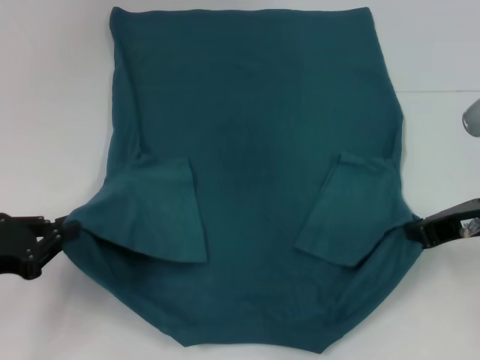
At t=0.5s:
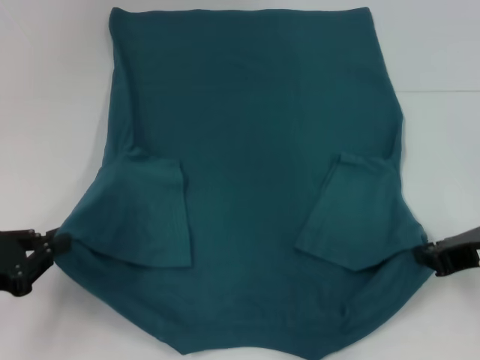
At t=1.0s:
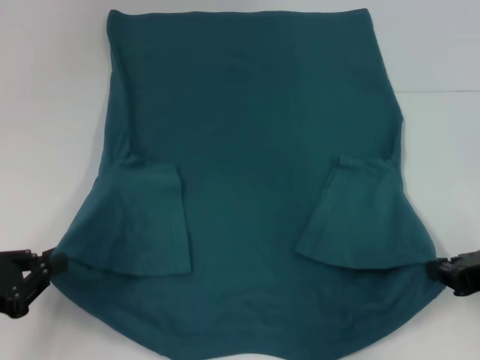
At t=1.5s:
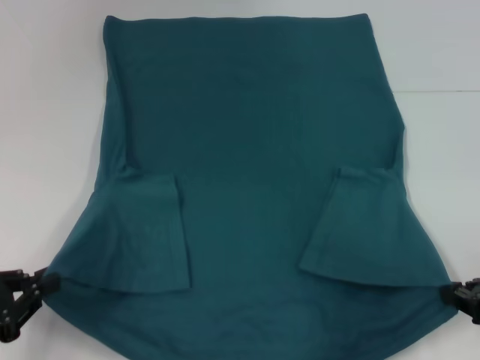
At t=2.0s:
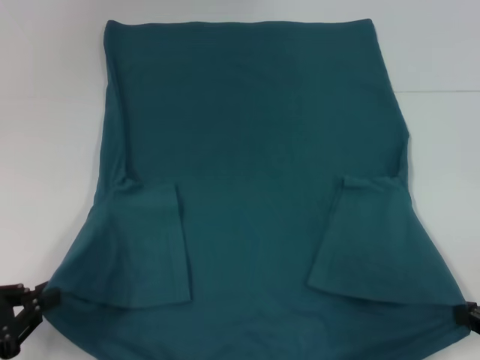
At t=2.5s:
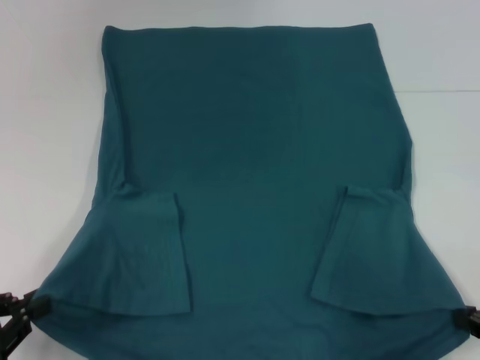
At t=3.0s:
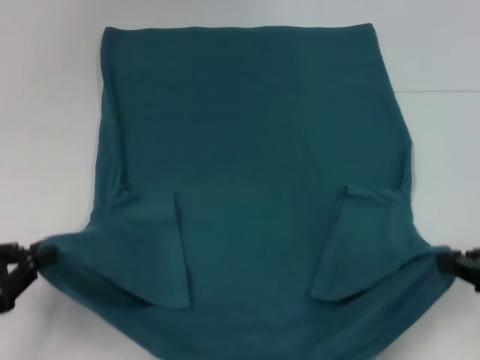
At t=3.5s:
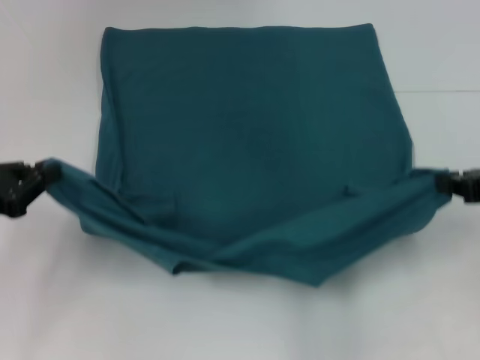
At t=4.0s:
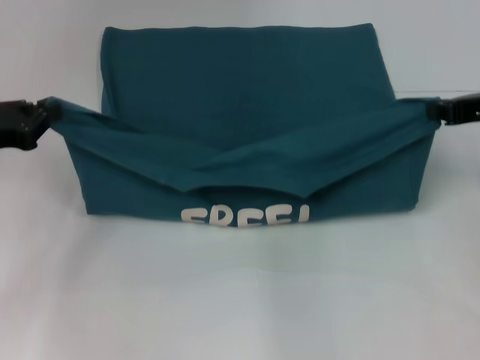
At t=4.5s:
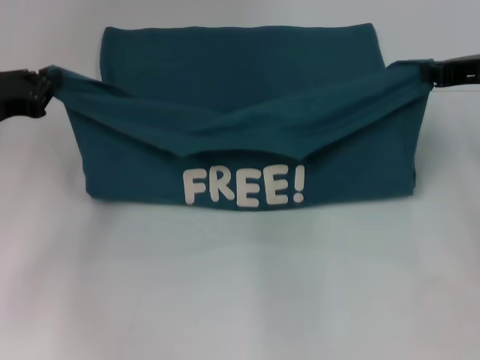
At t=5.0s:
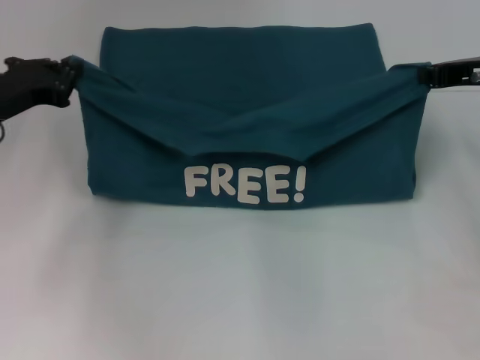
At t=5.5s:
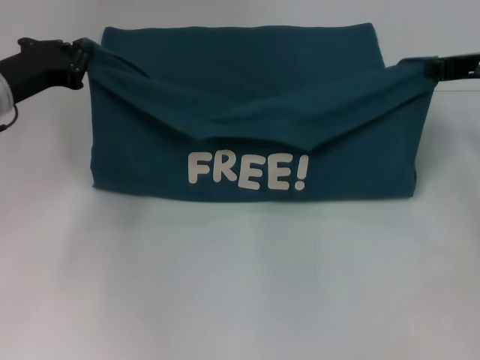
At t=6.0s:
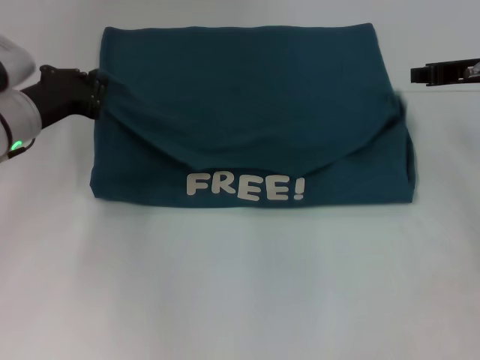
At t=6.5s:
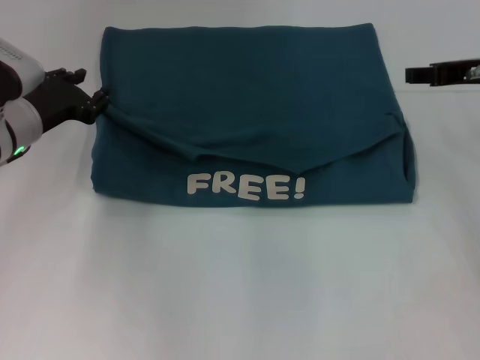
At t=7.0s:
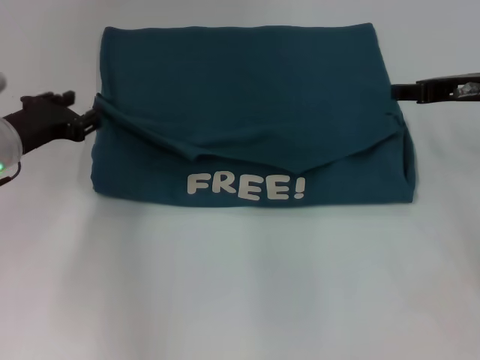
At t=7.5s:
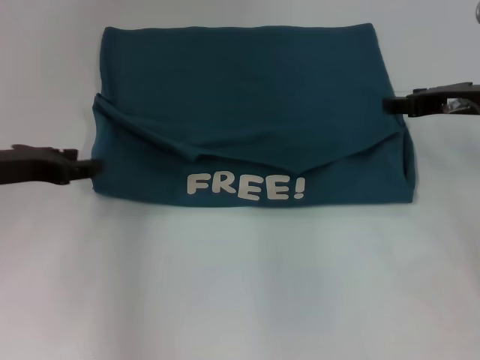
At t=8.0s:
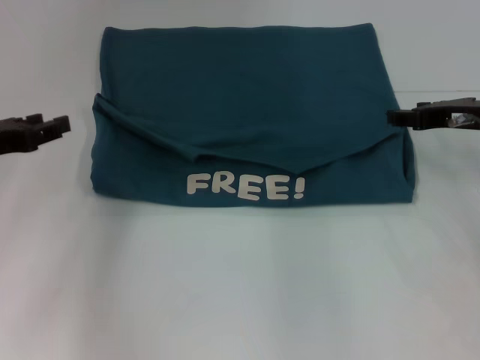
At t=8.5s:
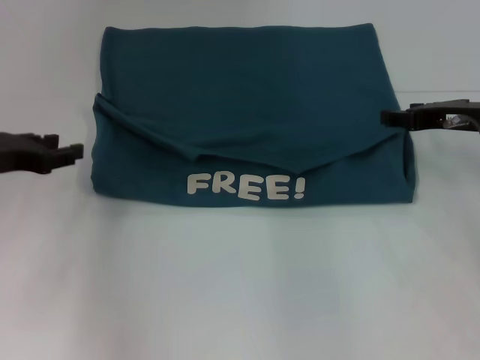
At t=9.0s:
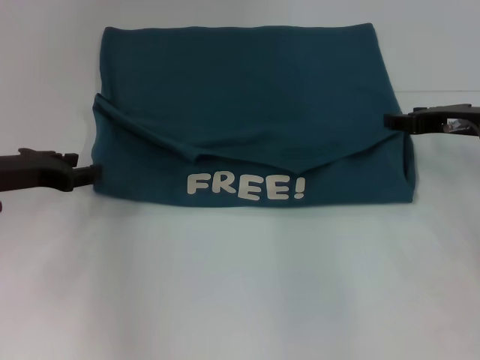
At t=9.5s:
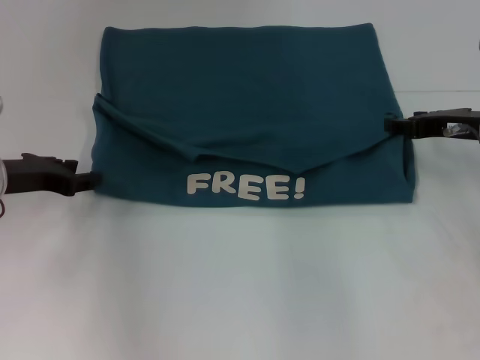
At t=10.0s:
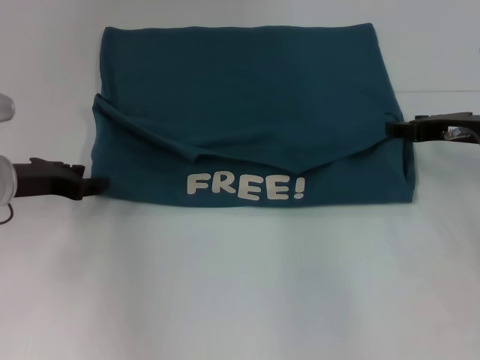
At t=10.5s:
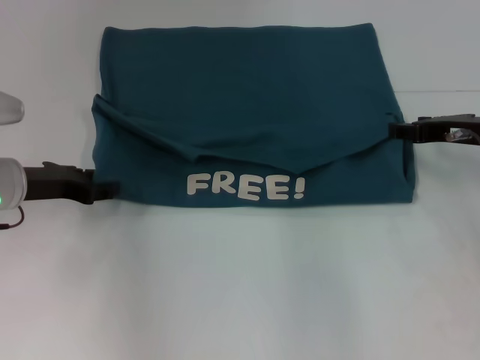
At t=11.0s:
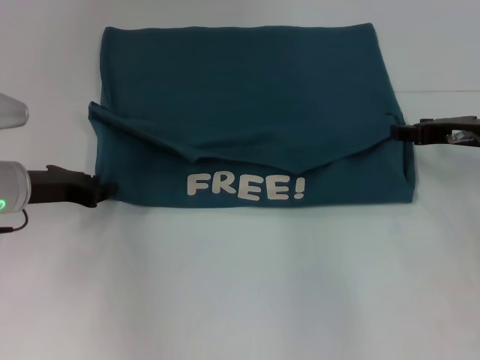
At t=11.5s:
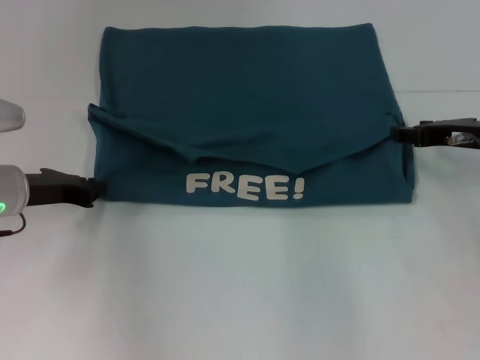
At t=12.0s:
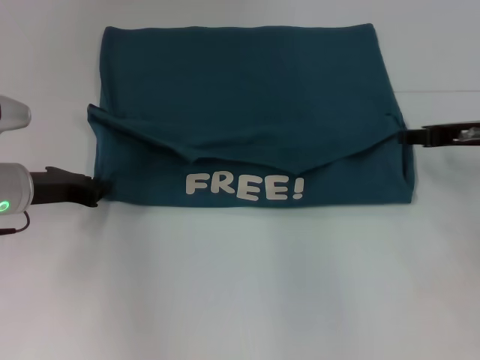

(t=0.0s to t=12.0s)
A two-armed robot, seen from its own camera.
Step, t=0.0s - t=6.5s: Fold the clothes to the left.
Step, t=0.0s - t=6.5s: Fold the clothes to the right.
t=0.0s - t=2.0s: The left gripper moves backward, roughly 5 cm. The right gripper shifts about 10 cm backward and to the right.
t=2.0s - t=4.0s: The two grippers go some 15 cm forward and upward.
t=4.0s - t=6.0s: The right gripper travels forward by some 5 cm; the left gripper moves forward and to the right, about 10 cm.
t=6.0s - t=8.0s: The left gripper goes about 10 cm backward and to the left, and opens; the right gripper ends up roughly 5 cm from where it was, and opens up.
t=8.0s - t=10.0s: The left gripper goes some 5 cm downward.
t=10.0s - t=12.0s: The left gripper closes up.

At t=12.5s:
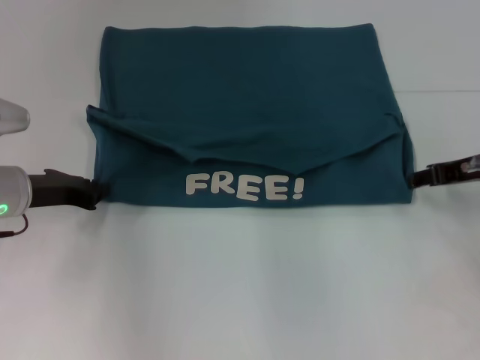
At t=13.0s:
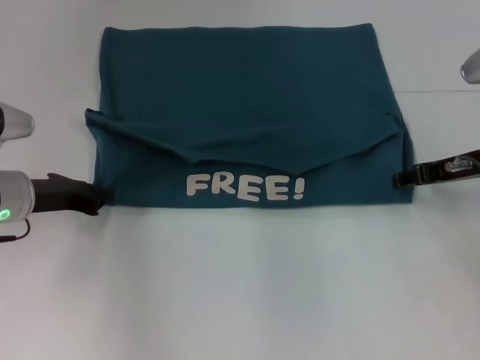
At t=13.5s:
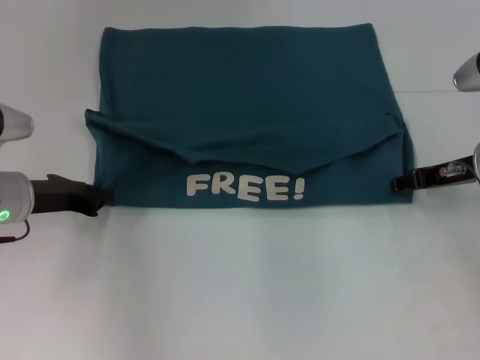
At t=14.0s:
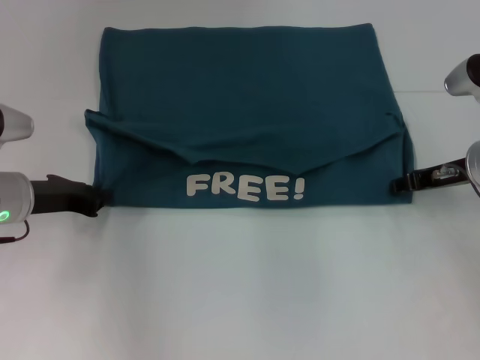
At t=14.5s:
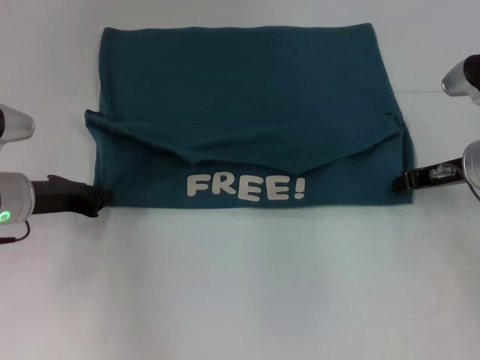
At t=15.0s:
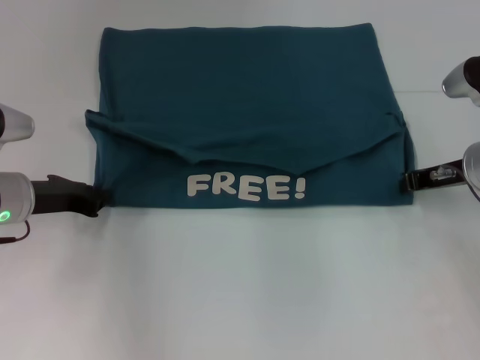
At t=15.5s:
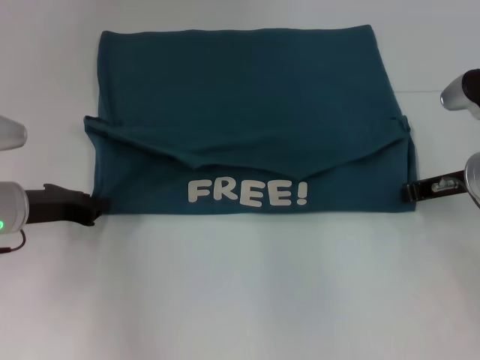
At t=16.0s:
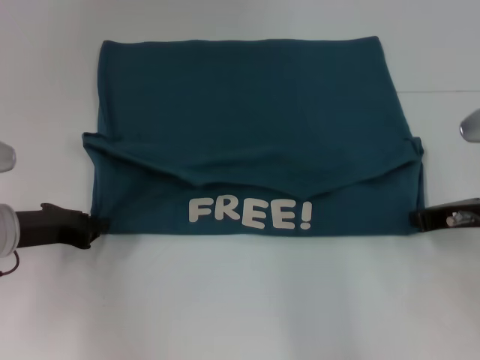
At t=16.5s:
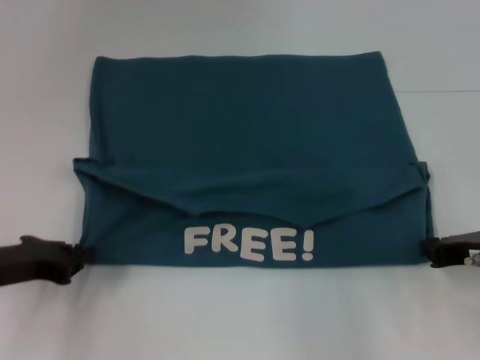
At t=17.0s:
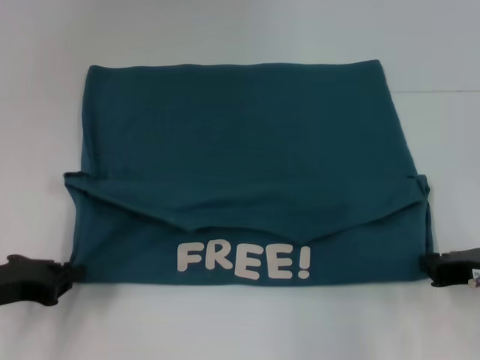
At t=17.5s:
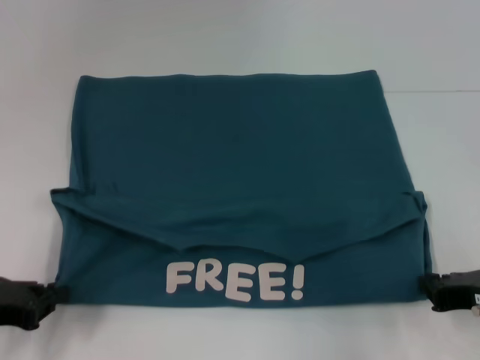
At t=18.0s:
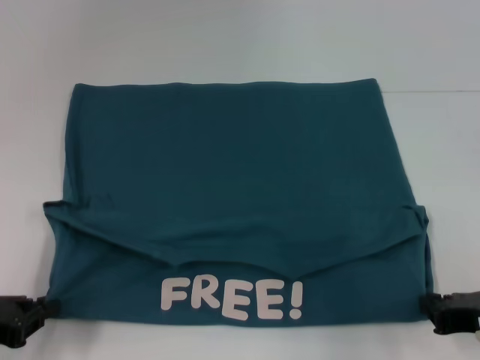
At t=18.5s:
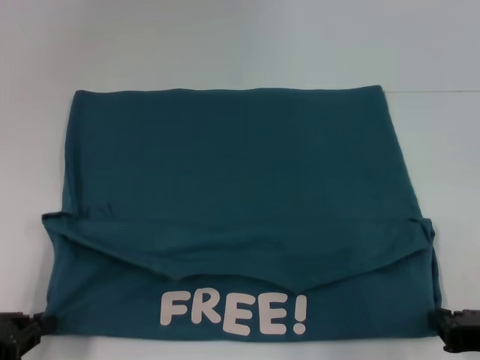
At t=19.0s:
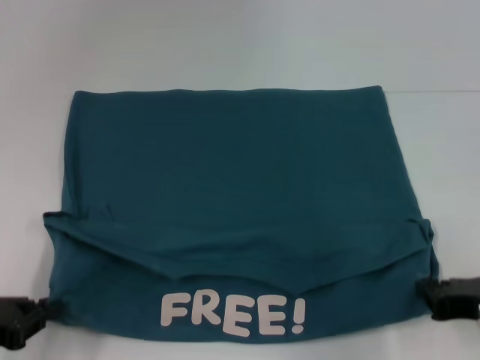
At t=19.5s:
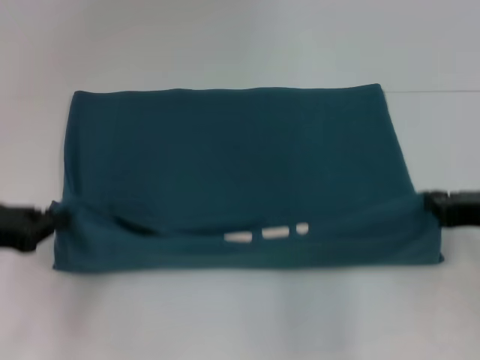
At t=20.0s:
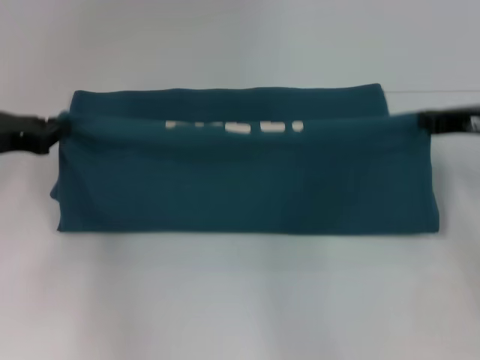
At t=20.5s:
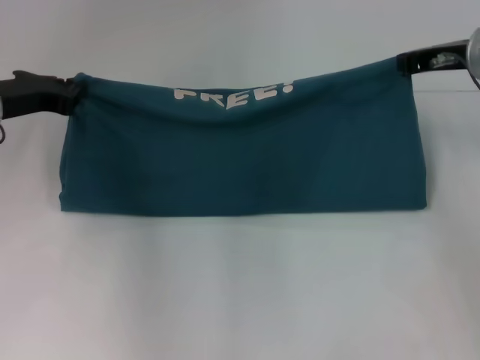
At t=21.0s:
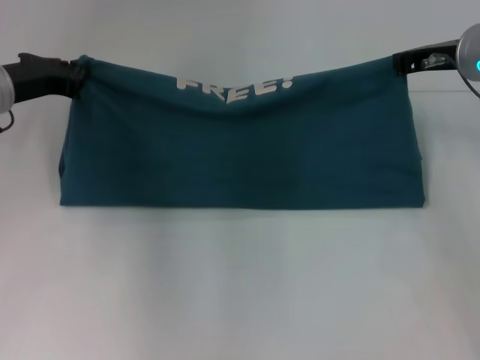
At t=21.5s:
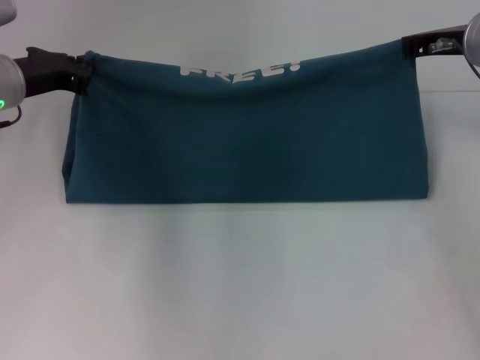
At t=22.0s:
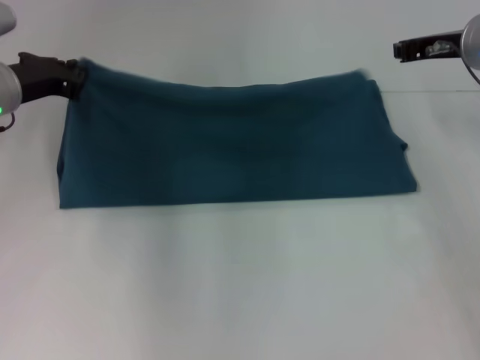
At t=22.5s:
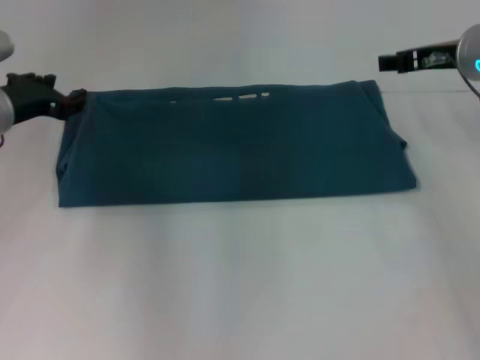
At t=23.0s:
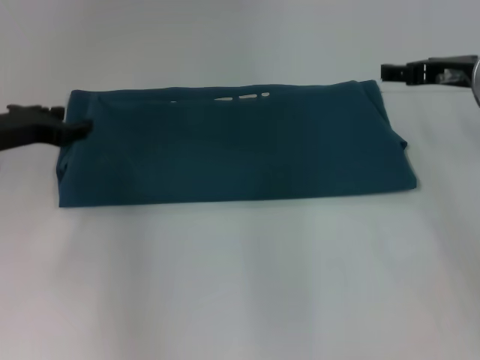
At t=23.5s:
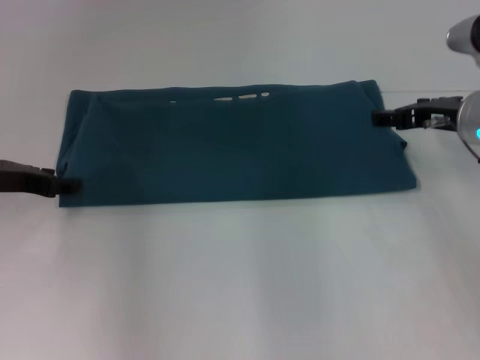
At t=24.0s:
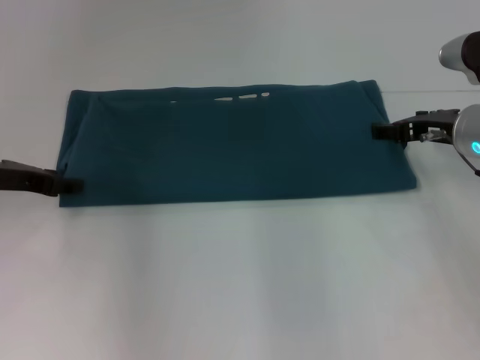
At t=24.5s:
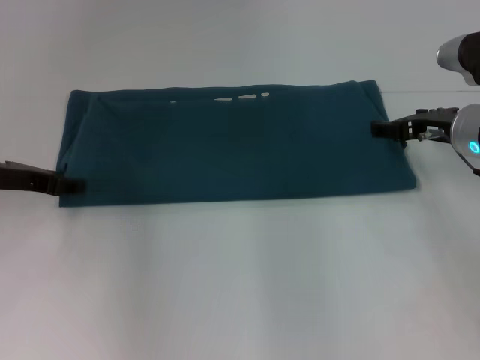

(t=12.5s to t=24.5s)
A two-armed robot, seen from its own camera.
Step, t=12.5s - t=18.5s: Pull the clothes with your left hand.
Step, t=12.5s - t=18.5s: Pull the clothes with your right hand.
Step, t=19.0s - t=22.0s: Fold the clothes to the left.
Step, t=19.0s - t=22.0s: Fold the clothes to the right.
t=12.5s - t=14.5s: The grippers move only a little.
t=14.5s - t=16.5s: Both grippers move backward, roughly 10 cm. The right gripper closes up.
t=16.5s - t=18.5s: The grippers both shift backward by approximately 10 cm.
t=18.5s - t=20.5s: The right gripper moves forward, roughly 25 cm. The left gripper goes approximately 25 cm forward and upward.
t=20.5s - t=22.5s: The left gripper opens up, while the right gripper opens its fingers.
t=22.5s - t=24.5s: The right gripper is displaced downward by roughly 5 cm, and opens.

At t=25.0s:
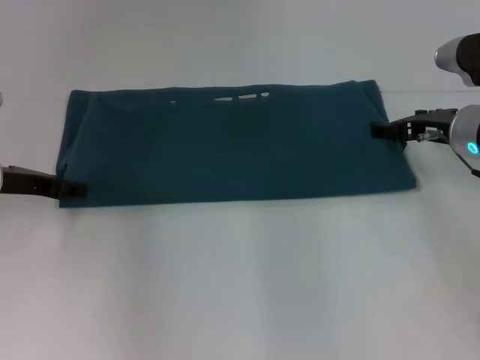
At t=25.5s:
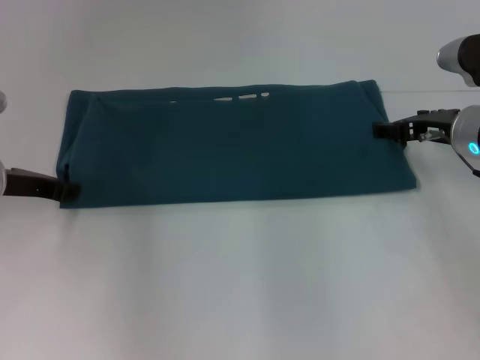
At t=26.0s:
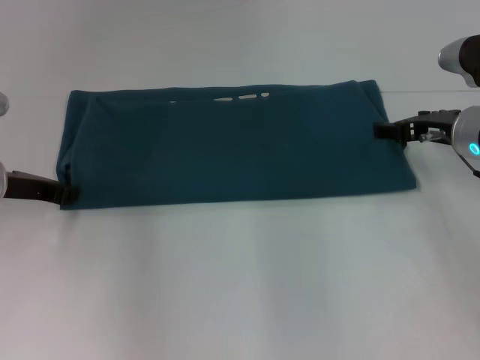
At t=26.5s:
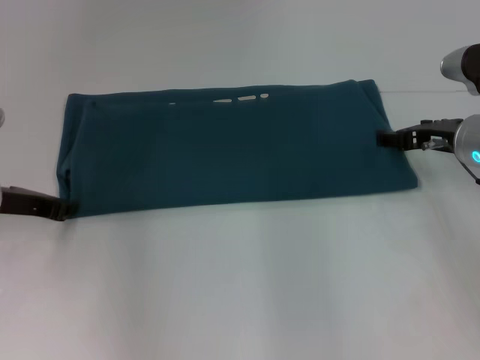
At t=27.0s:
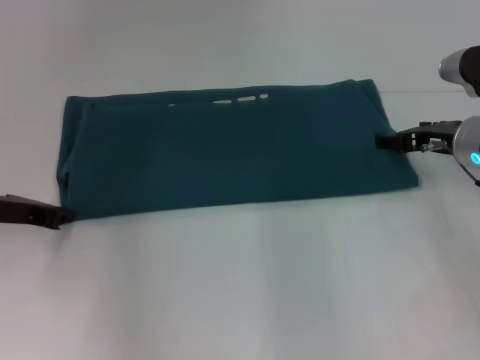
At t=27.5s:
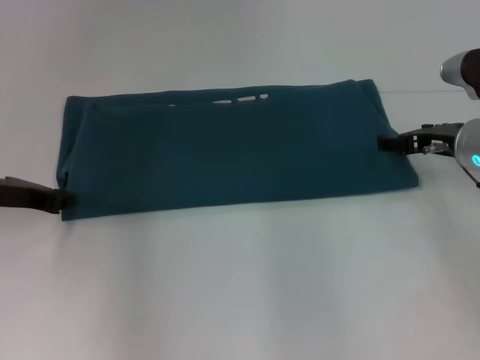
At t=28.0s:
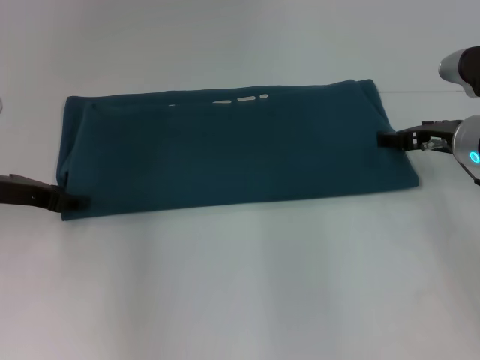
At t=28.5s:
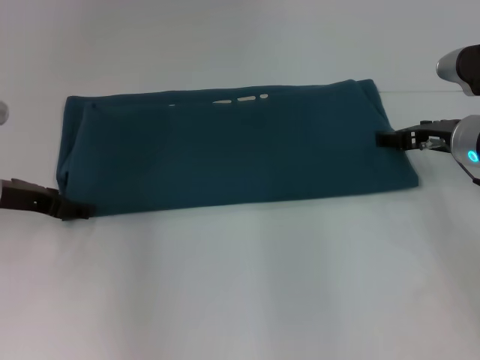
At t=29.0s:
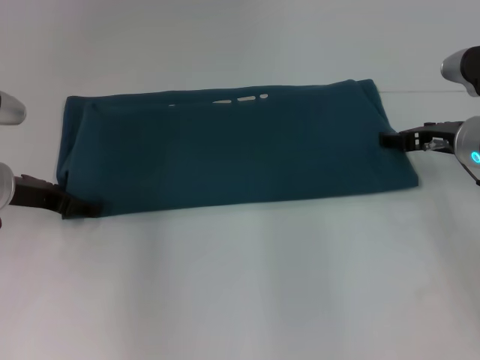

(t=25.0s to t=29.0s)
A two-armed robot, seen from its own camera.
t=25.0s - t=27.0s: The left gripper closes its fingers.
t=27.0s - t=29.0s: The left gripper opens its fingers.
